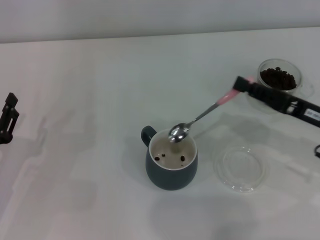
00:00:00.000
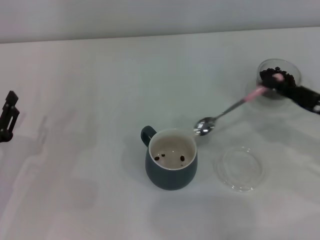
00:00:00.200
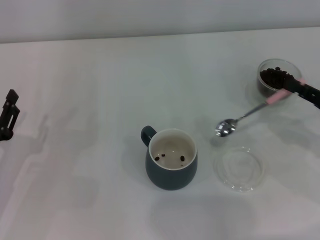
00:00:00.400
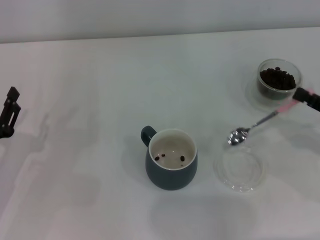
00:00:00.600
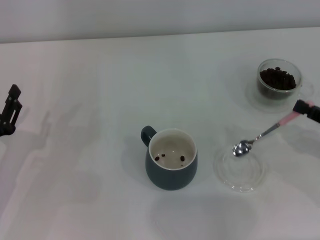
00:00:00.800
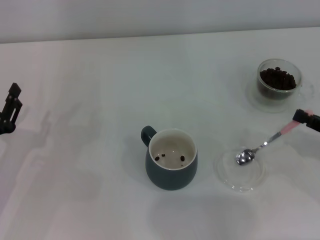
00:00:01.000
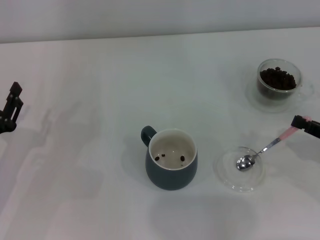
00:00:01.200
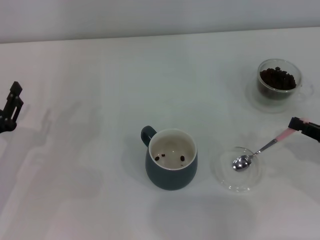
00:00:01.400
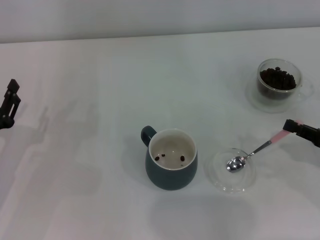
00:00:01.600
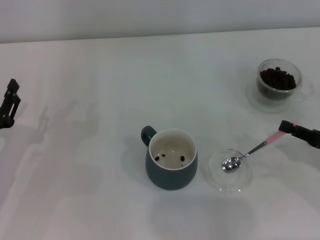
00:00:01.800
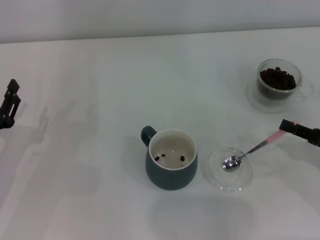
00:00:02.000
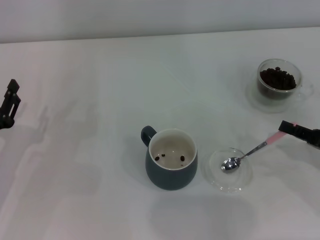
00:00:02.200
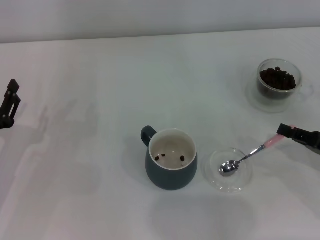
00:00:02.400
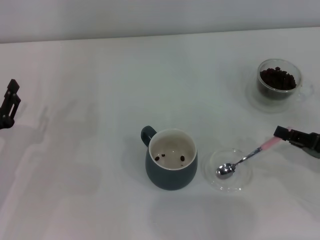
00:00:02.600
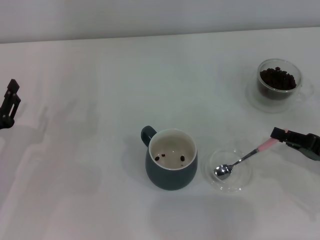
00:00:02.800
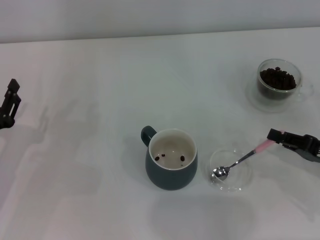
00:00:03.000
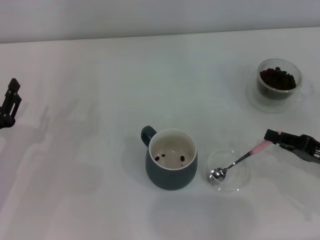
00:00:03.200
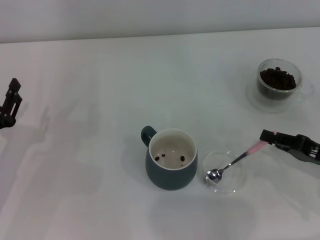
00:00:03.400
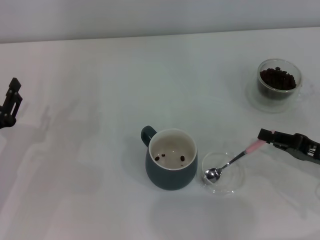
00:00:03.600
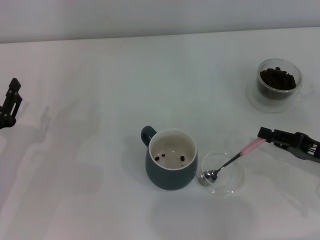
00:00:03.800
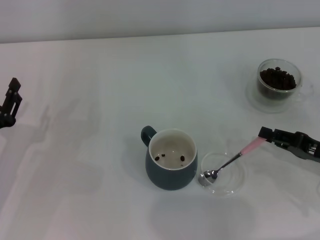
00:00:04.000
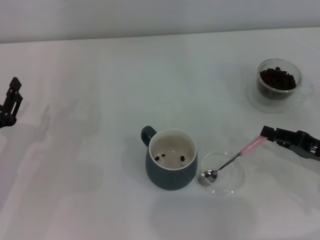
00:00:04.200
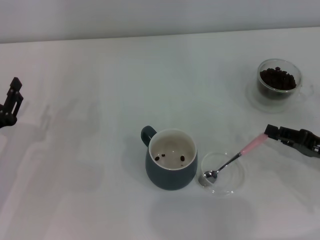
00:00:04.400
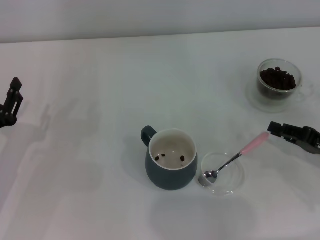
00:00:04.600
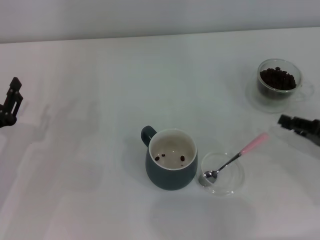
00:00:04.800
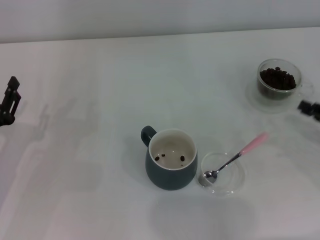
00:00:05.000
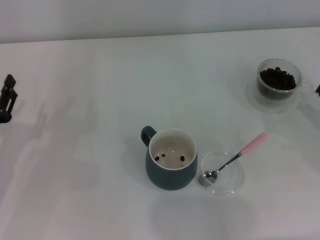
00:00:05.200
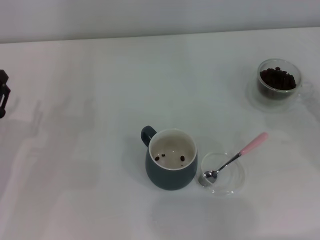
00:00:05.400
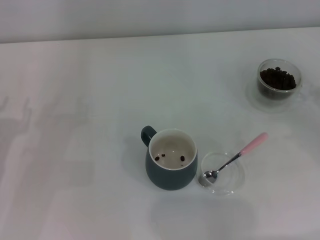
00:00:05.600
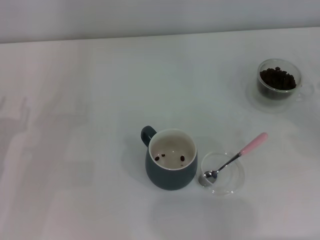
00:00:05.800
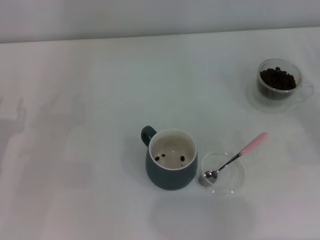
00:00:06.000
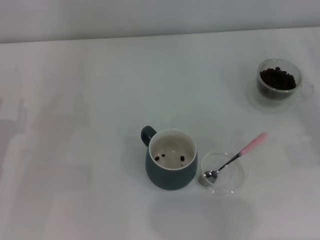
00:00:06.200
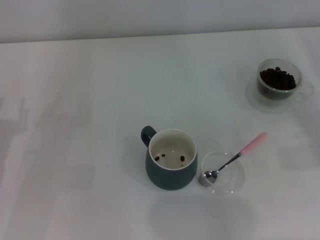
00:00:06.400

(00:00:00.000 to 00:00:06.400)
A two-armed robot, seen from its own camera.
Task of the whole recording: Use a pink spoon to take out the coffee beans from the glass and pour them into the gray cup.
Step, 00:00:00.000 - 00:00:04.400: Place the spoon back in its original place with the right gripper.
00:00:00.000 - 00:00:01.600: The right gripper shifts roughly 5 cm to the right.
00:00:01.600 - 00:00:04.800: The grippers move only a little.
00:00:04.800 - 00:00:06.400: The right gripper shifts by roughly 5 cm.
